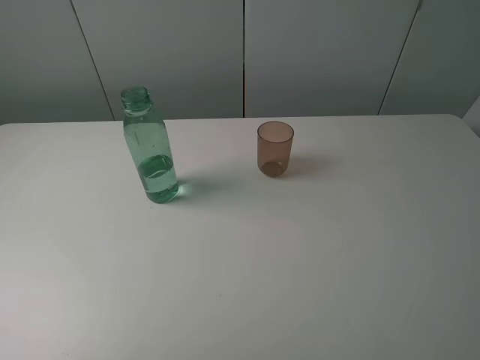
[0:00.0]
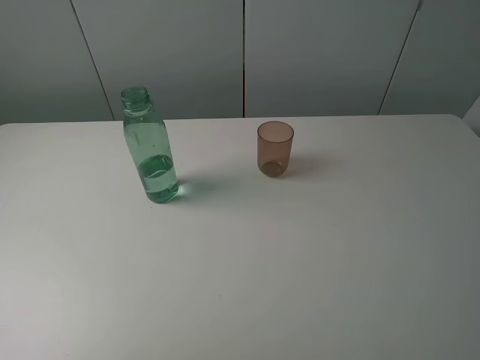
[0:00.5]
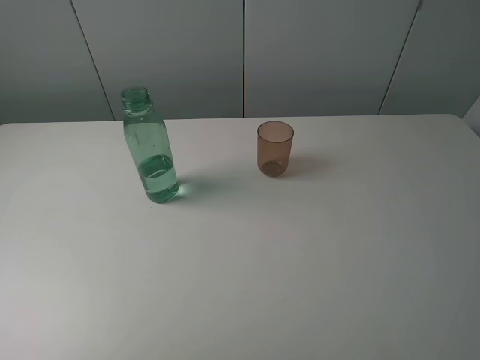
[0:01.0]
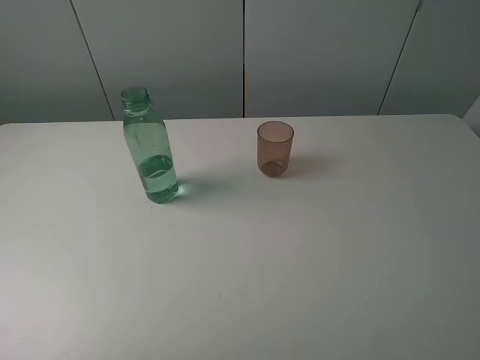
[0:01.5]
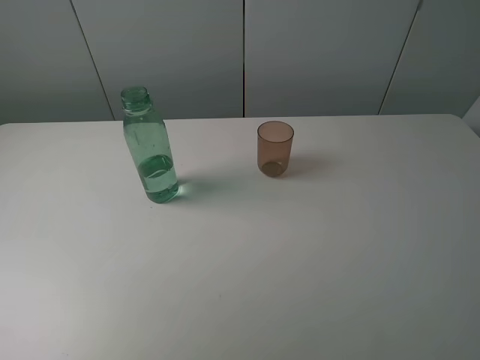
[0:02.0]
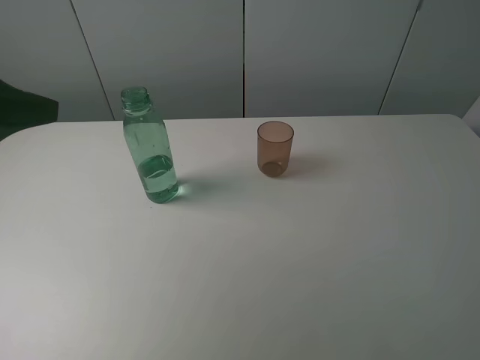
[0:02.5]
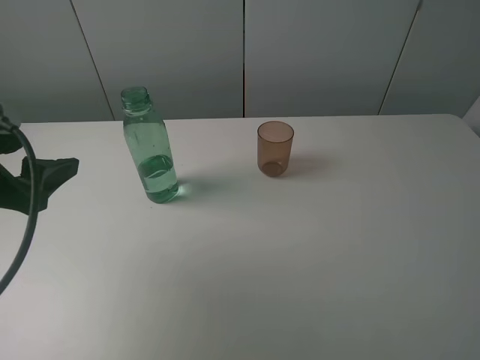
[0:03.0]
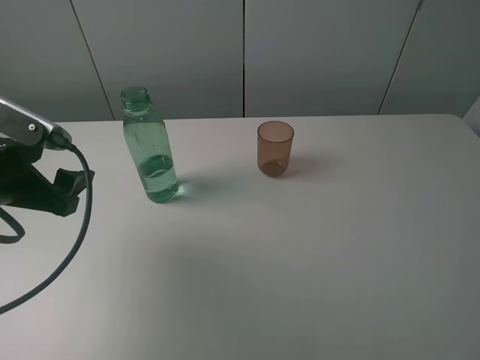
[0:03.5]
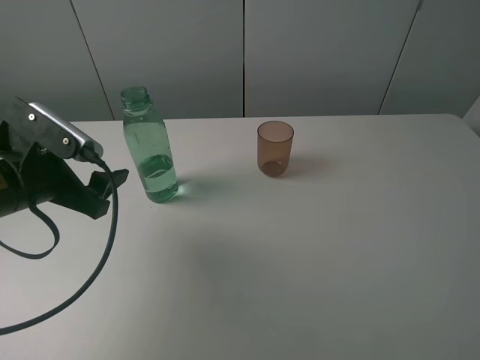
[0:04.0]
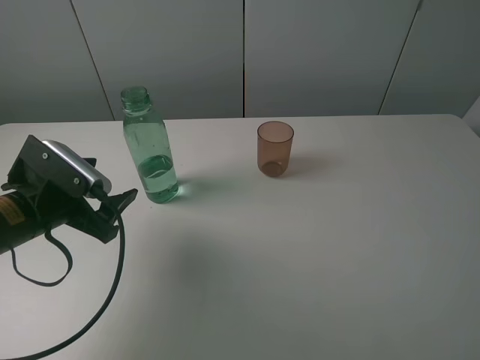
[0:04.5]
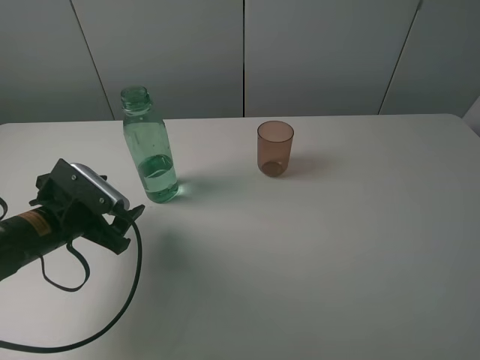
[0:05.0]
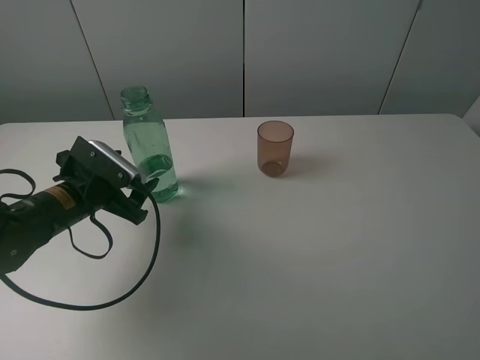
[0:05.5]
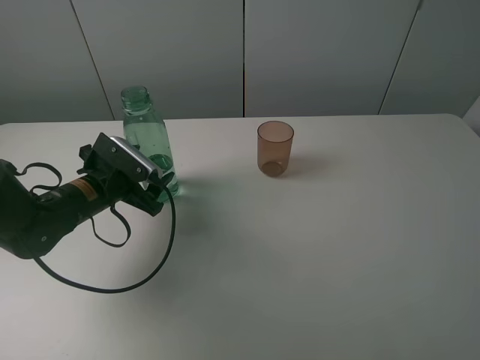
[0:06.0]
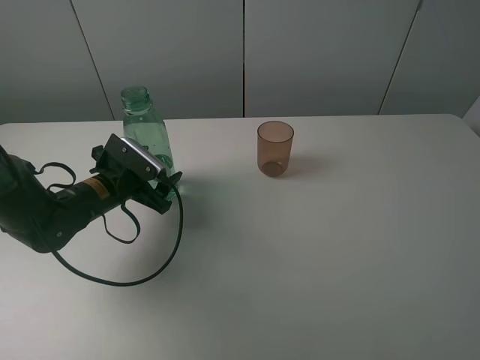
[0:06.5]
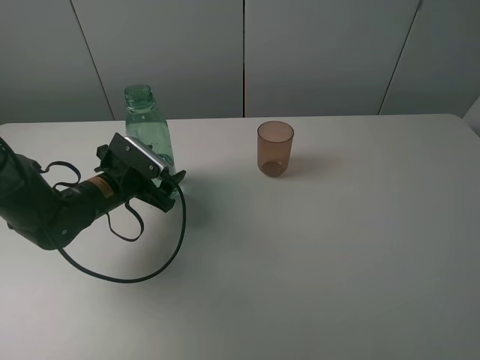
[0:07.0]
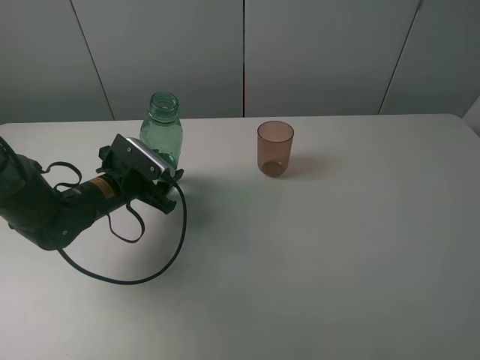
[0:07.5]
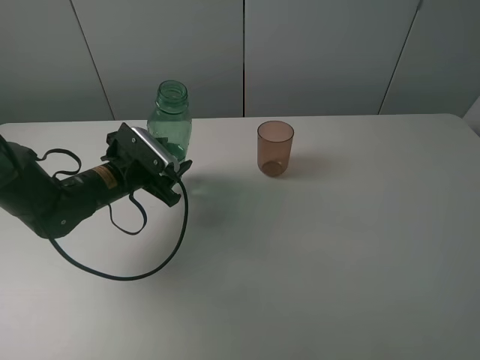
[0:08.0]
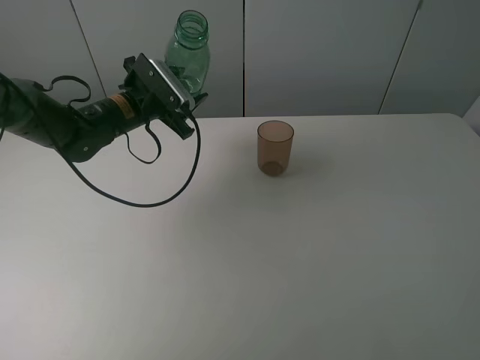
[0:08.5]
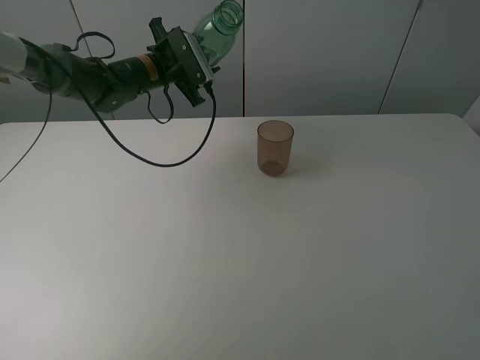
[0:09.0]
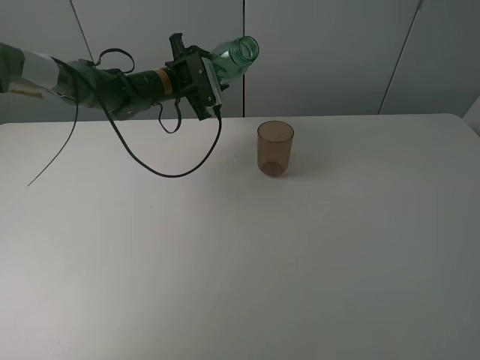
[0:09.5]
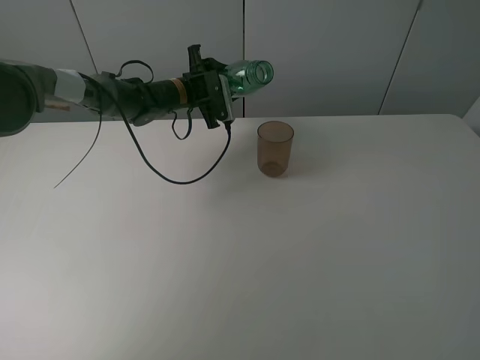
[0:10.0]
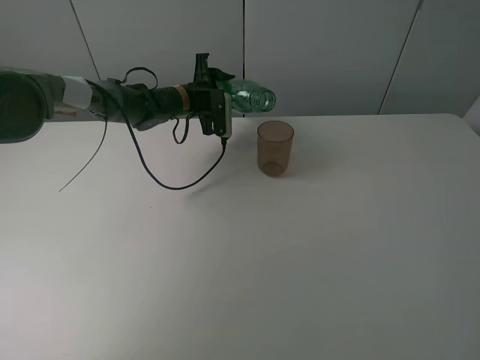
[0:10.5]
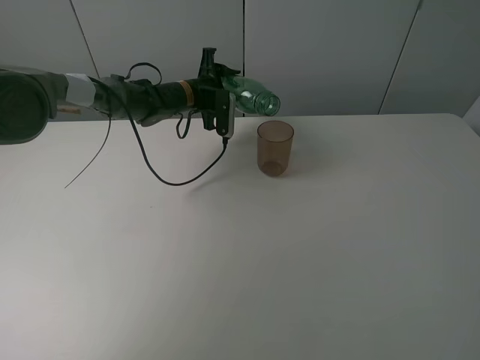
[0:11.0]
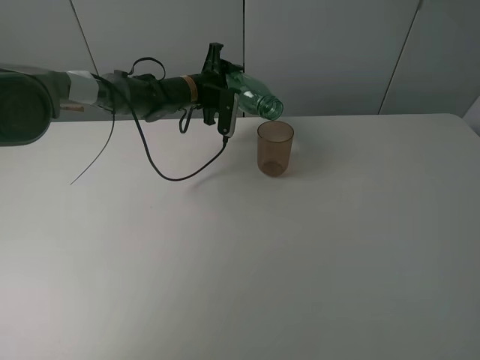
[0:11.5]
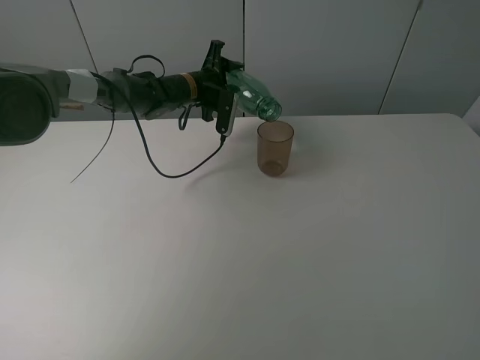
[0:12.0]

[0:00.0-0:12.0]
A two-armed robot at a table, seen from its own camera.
Task of the whole recording: pick up the bottle filled with water and pour it into the pink cup.
Step, 0:00.0 to 0:07.5: Grasp the green bottle with the left gripper.
0:02.0 to 0:04.0: The left gripper goes some 20 cm downward and forward.
0:04.0 to 0:06.0: The left gripper is displaced downward and forward by some 10 cm.
0:06.0 to 0:08.0: The left gripper closes up.
0:08.0 to 0:10.0: The left gripper moves forward and to the right, approximately 20 cm.

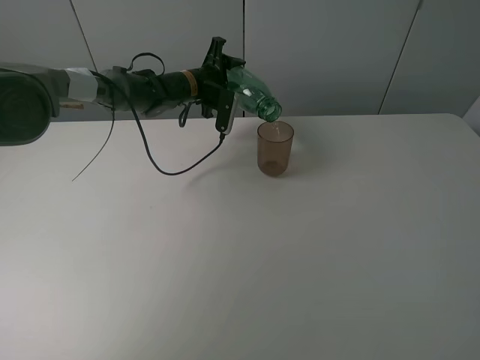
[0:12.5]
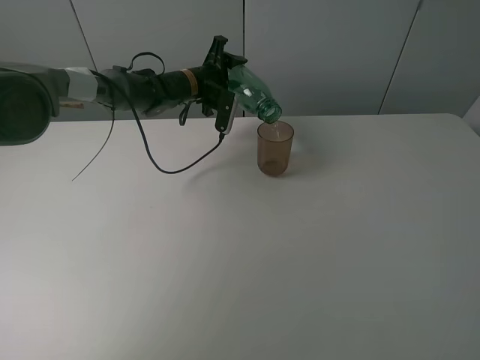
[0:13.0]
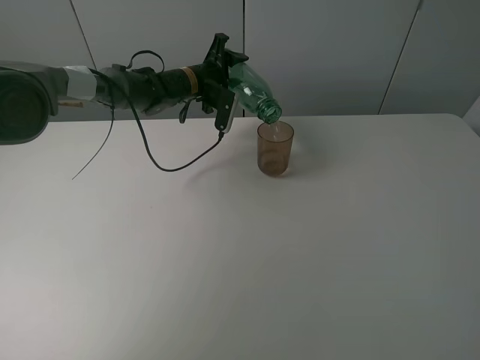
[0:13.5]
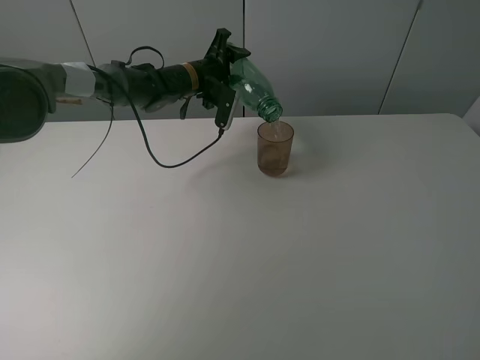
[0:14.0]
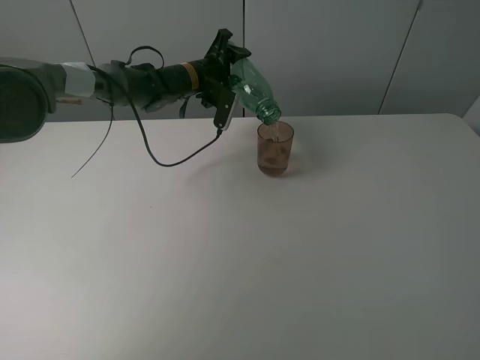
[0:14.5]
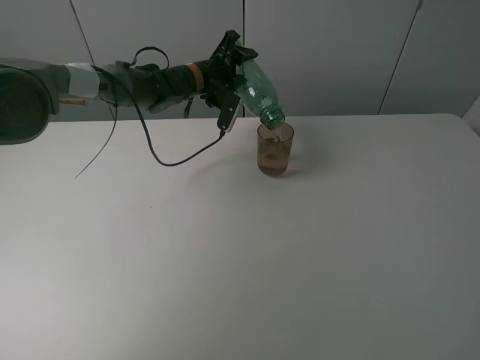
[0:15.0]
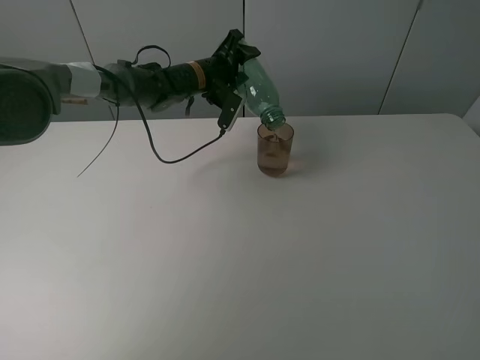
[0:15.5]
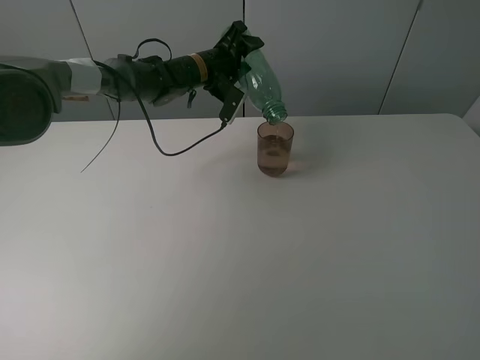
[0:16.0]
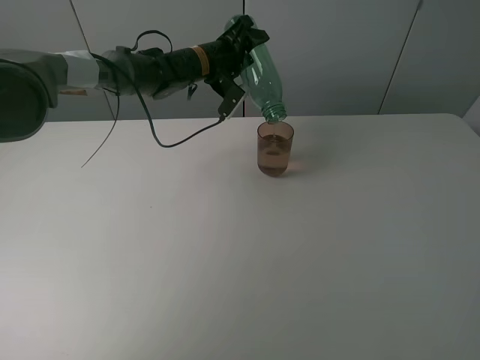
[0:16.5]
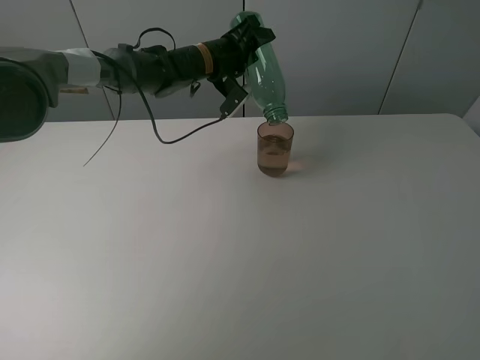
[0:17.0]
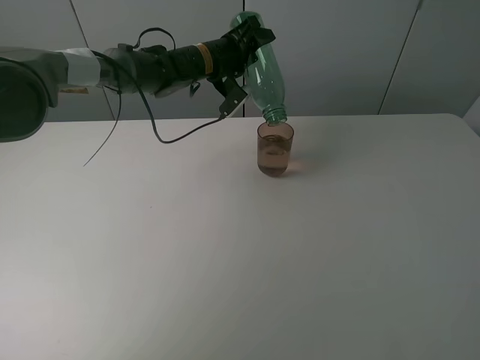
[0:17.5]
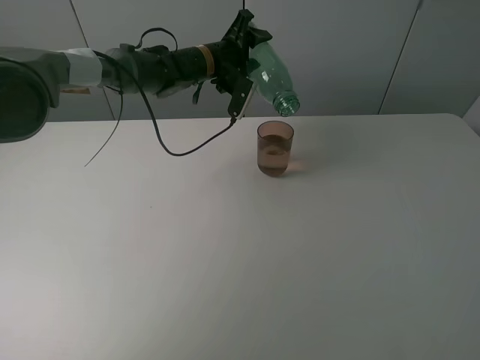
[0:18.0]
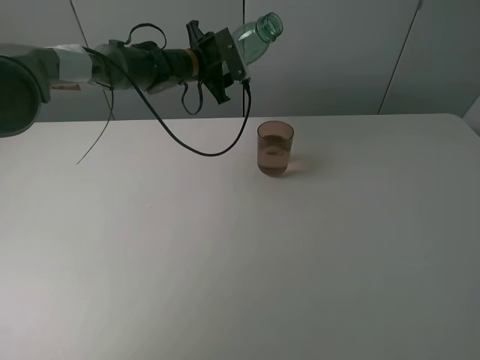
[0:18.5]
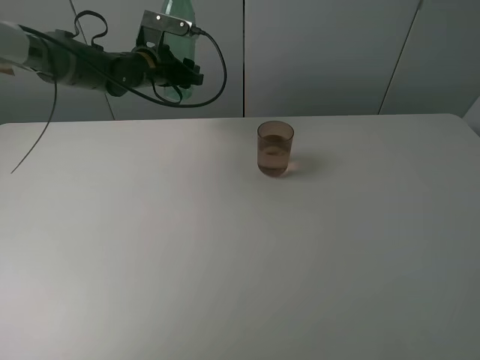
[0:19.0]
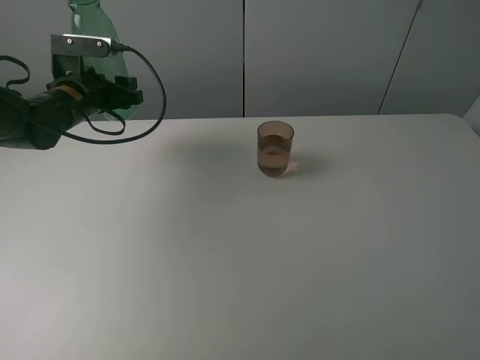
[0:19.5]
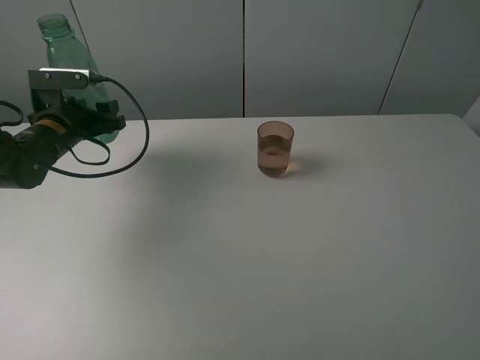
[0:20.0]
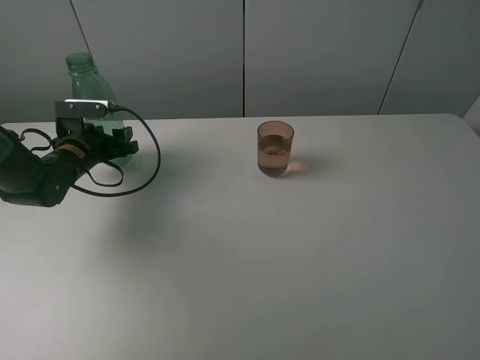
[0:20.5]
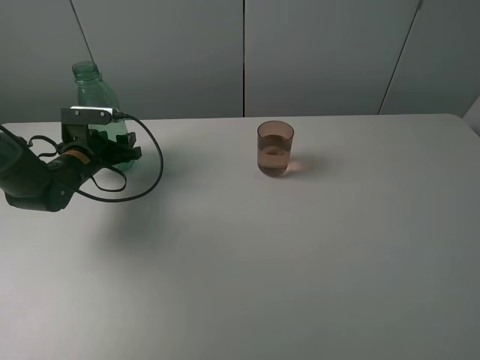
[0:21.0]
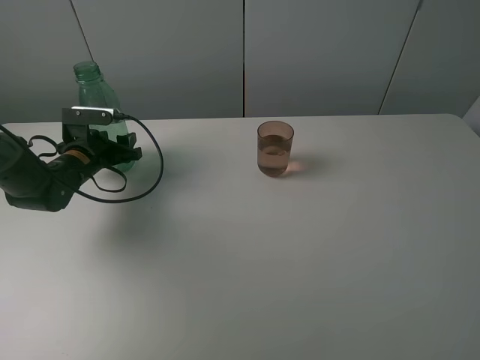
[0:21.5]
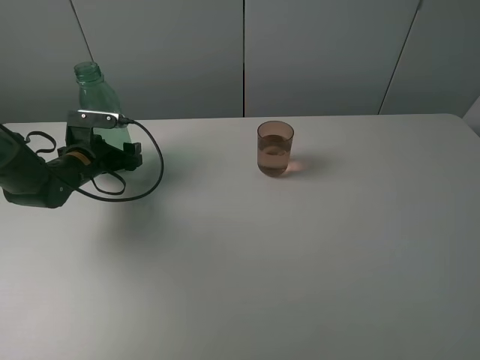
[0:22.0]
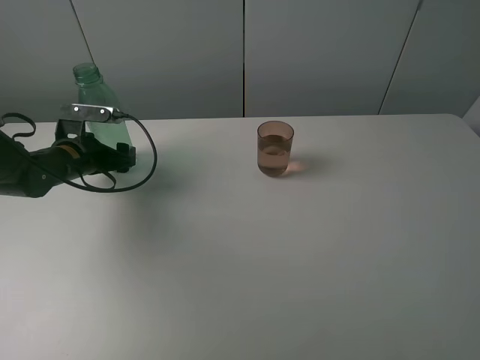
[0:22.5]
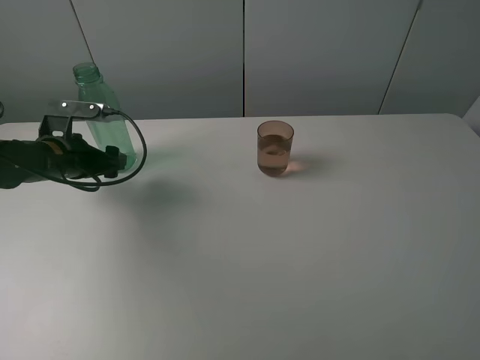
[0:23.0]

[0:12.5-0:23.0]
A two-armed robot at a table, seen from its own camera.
Task of the whole recording: pick up the bottle filled with water and pour it into the pink cup.
Step, 0:12.5 to 0:17.5: Pour water from green bottle to pink cup with the left gripper.
Step, 0:18.0 to 0:22.5: Place the green bottle with the left gripper.
0:12.5 to 0:14.5: The grippers stay close to where they were, moving slightly.
0:14.5 to 0:16.5: The grippers move only a little.
0:16.5 to 0:19.0: The left gripper shifts about 10 cm to the left.
0:19.0 to 0:21.0: The left gripper moves downward, backward and to the left, some 20 cm.
0:21.0 to 0:23.0: The left gripper goes approximately 5 cm upward, and opens its fingers.

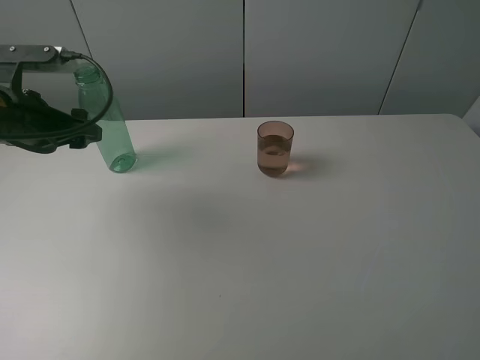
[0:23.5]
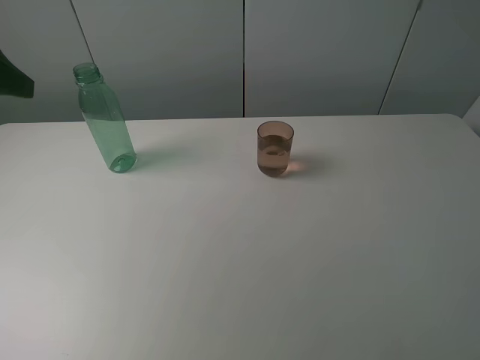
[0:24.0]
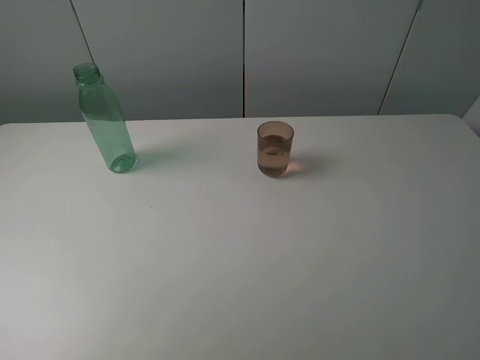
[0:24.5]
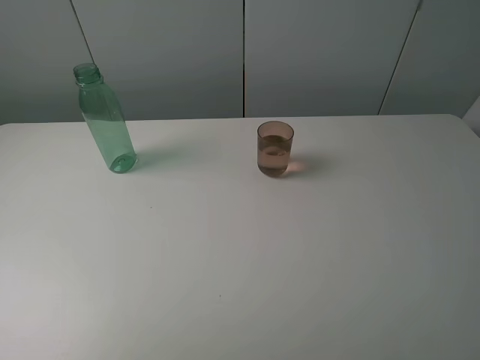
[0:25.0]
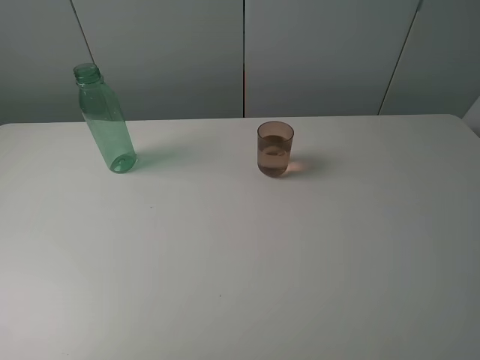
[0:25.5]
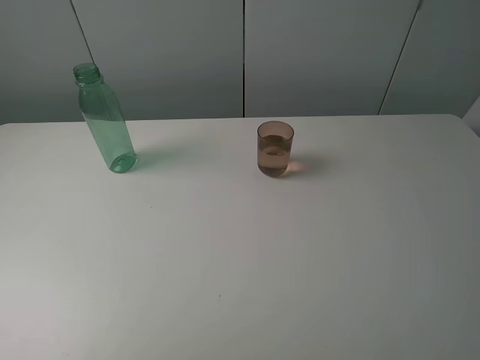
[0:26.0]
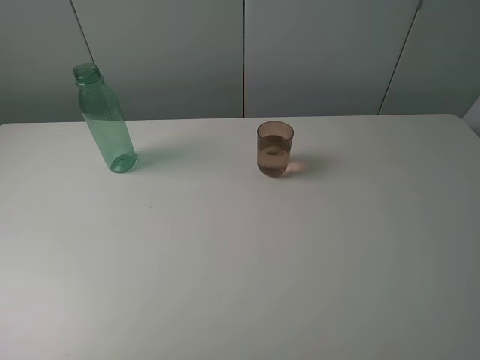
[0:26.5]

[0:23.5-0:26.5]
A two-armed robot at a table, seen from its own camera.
Task of the whole recording: pick up the bottle filled with water and pour it into the pink cup.
0:23.5 to 0:25.0: The left gripper heads backward and upward, covering approximately 30 cm.
